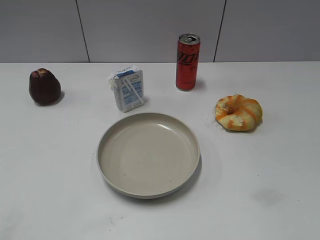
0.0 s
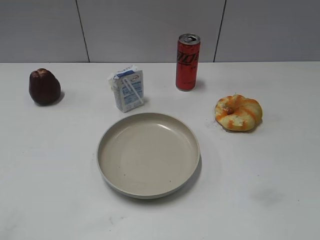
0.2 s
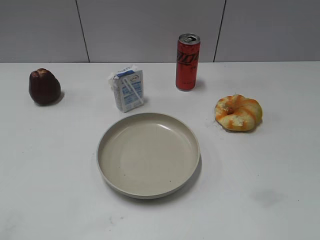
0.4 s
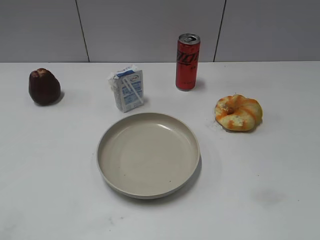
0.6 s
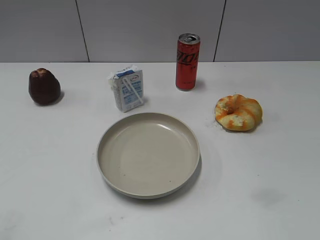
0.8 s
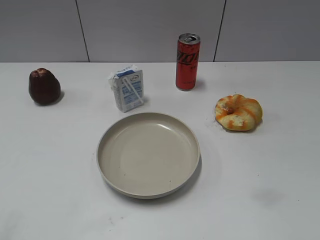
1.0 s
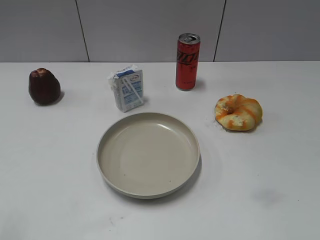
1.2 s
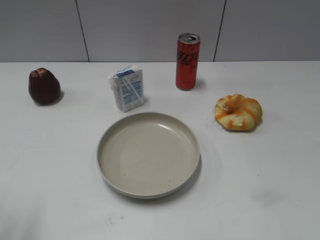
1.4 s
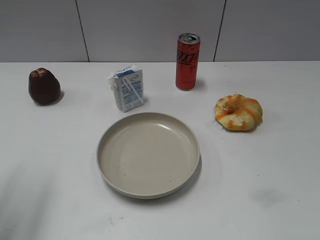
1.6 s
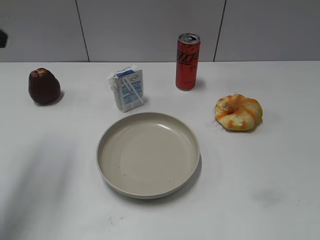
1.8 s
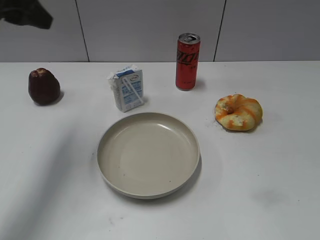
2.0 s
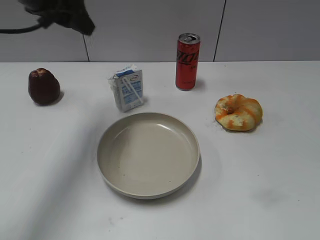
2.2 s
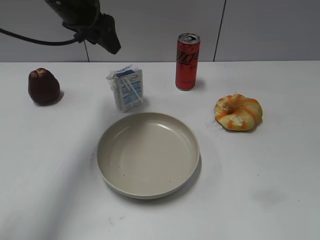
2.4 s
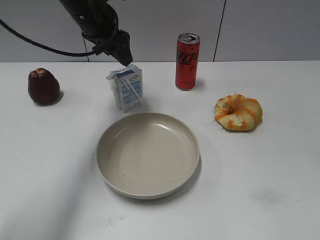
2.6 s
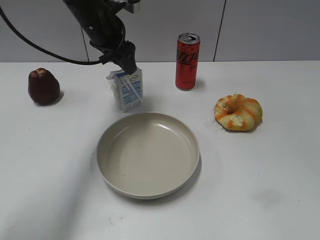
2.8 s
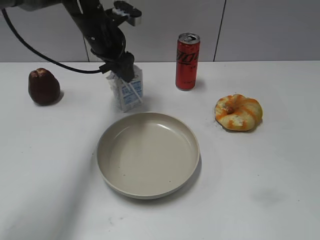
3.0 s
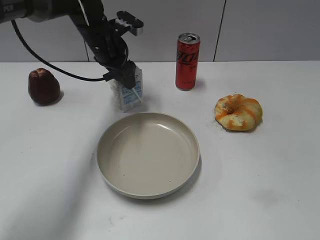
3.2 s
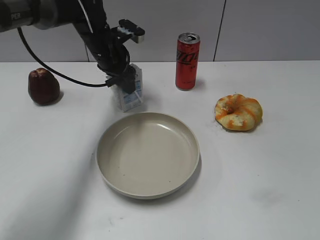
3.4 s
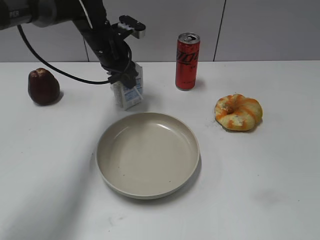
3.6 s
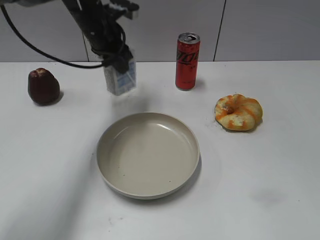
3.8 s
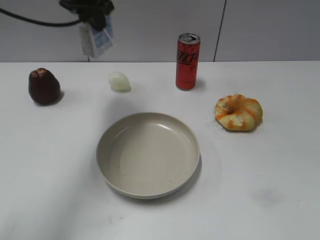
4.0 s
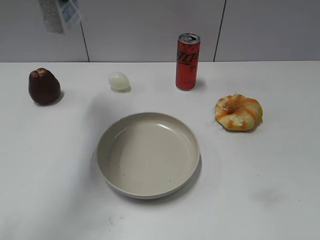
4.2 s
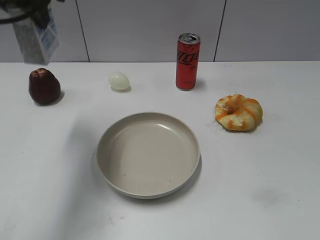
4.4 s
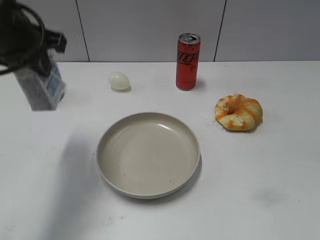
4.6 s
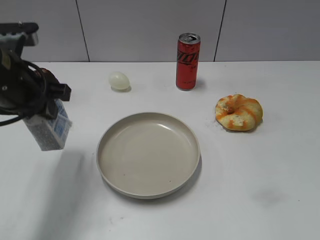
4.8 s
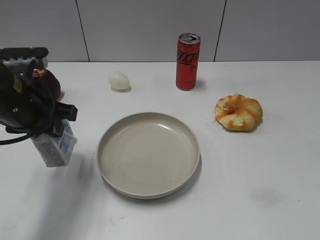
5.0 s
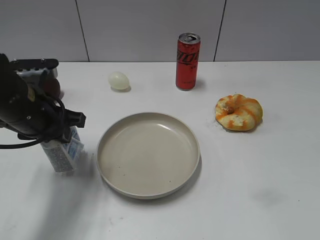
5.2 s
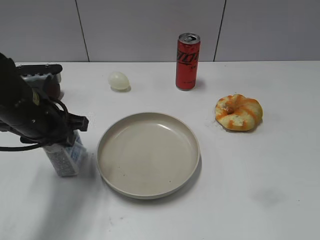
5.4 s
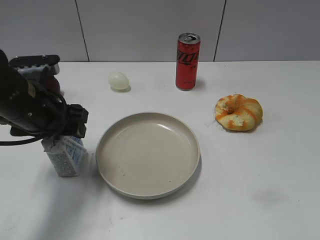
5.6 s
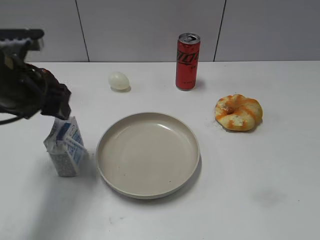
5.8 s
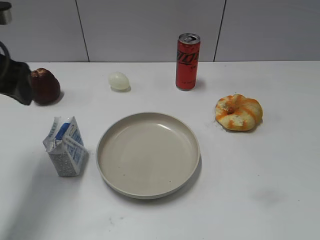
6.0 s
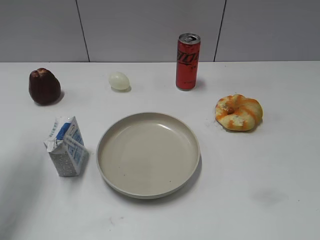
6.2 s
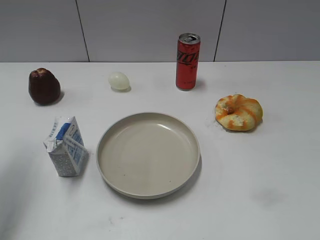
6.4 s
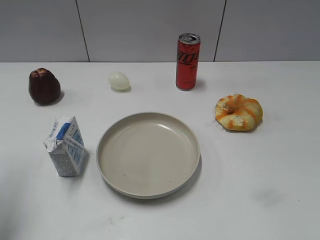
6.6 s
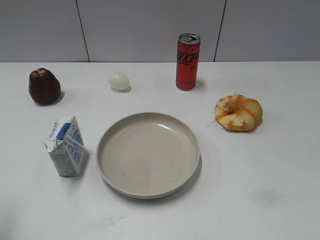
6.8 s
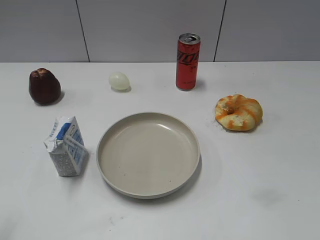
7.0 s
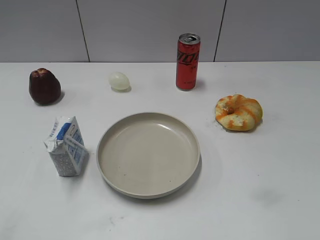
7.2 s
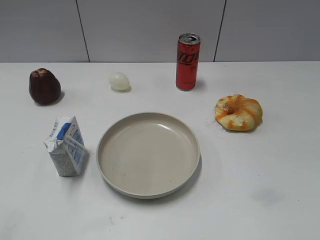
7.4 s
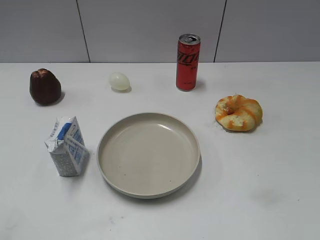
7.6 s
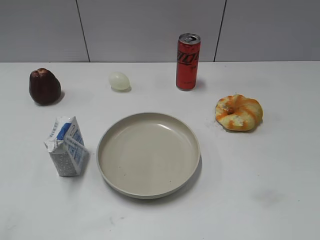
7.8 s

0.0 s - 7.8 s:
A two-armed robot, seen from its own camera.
Step, 0.8 s - 3.6 s: Grasp the milk with left gripper.
Step, 3.8 s - 5.6 s: Place the milk on the table with left gripper.
1.6 s - 3.2 s: The left gripper moves forward, to the right and downward, about 35 cm.
3.2 s - 4.6 s: The left gripper is displaced backward, upward and to the left by roughly 25 cm, and closes up.
4.6 s - 6.2 s: The left gripper goes approximately 10 cm to the left, travels downward and back again, roughly 10 cm each way, and opens.
6.2 s - 7.8 s: The left gripper is displaced backward by approximately 30 cm.

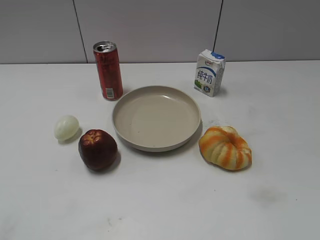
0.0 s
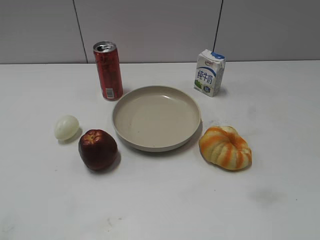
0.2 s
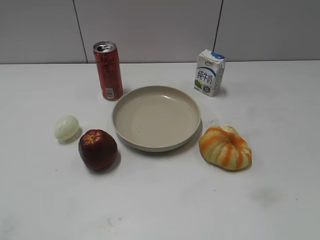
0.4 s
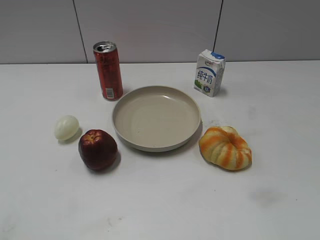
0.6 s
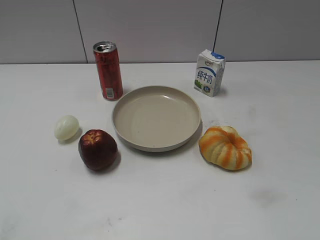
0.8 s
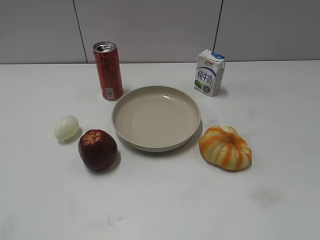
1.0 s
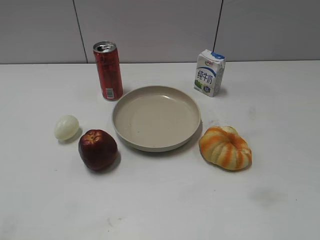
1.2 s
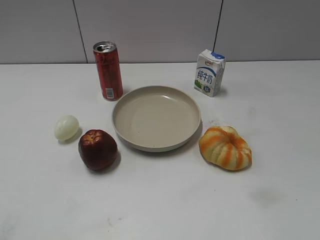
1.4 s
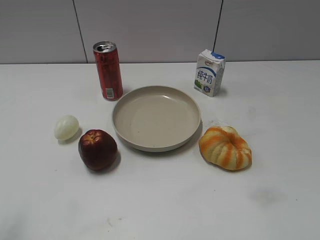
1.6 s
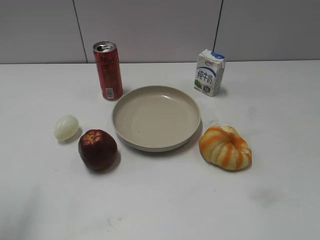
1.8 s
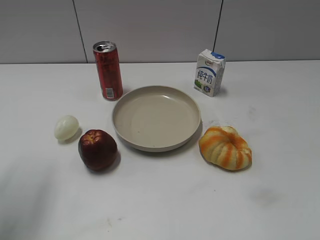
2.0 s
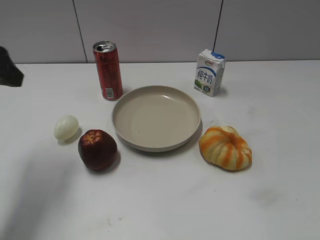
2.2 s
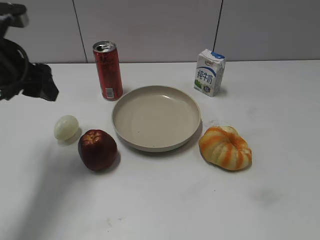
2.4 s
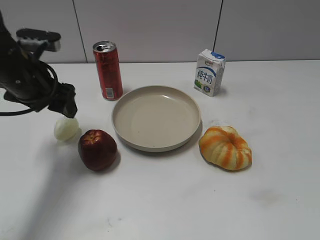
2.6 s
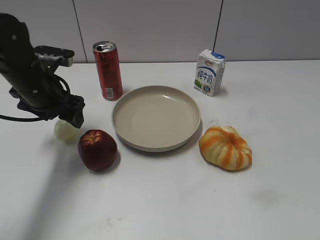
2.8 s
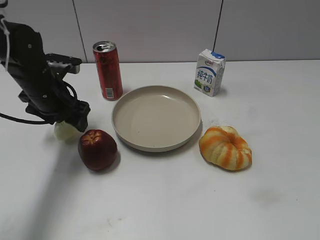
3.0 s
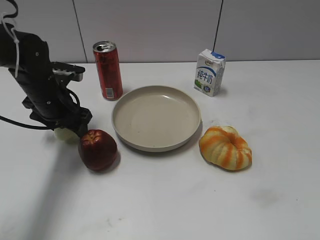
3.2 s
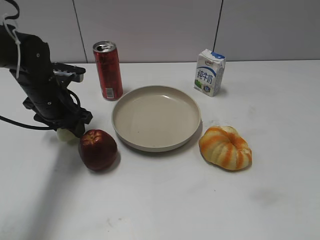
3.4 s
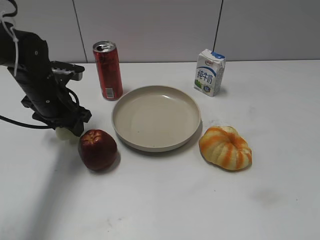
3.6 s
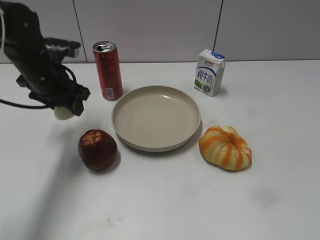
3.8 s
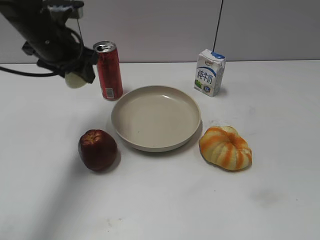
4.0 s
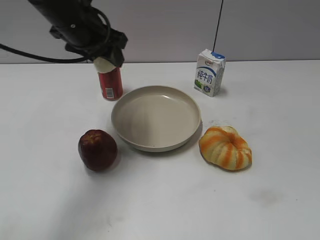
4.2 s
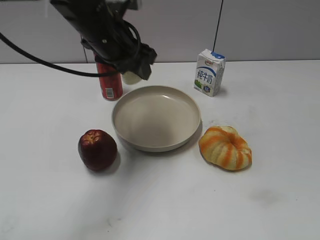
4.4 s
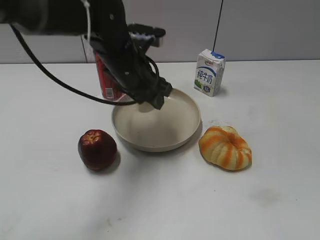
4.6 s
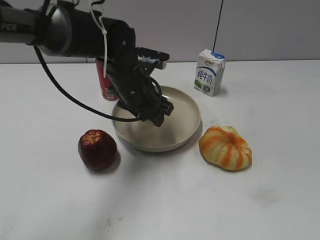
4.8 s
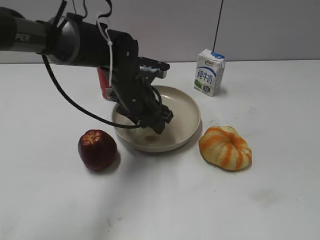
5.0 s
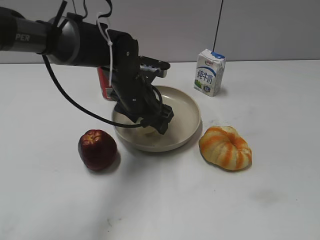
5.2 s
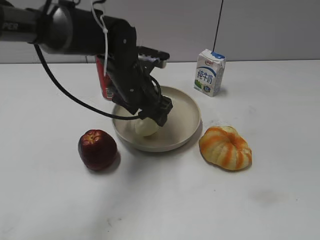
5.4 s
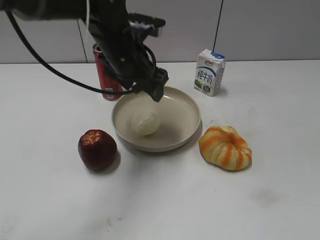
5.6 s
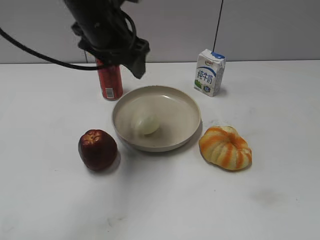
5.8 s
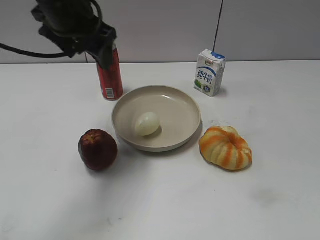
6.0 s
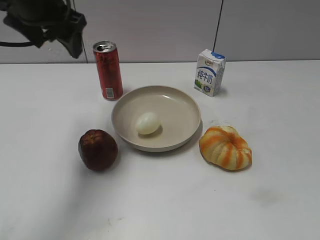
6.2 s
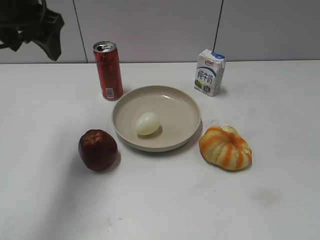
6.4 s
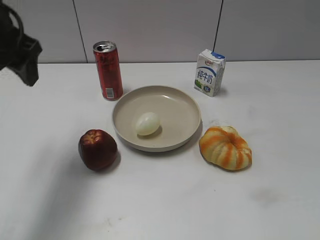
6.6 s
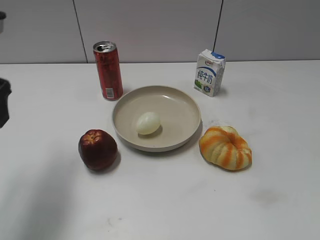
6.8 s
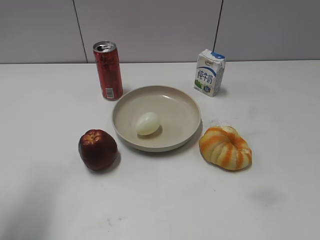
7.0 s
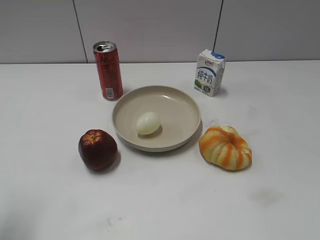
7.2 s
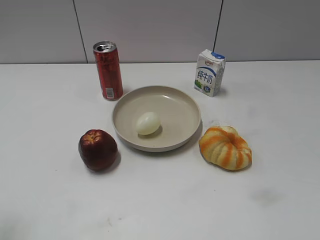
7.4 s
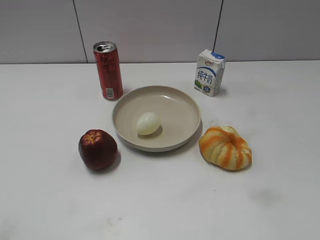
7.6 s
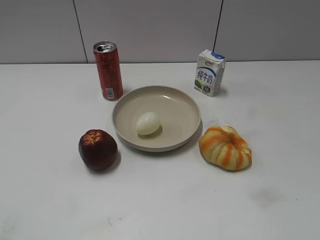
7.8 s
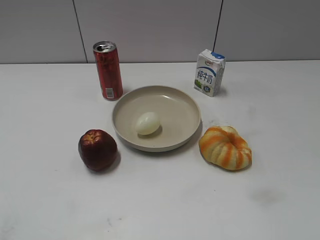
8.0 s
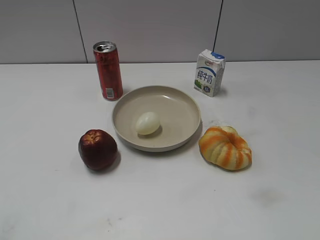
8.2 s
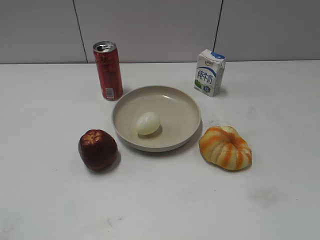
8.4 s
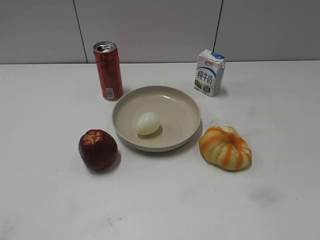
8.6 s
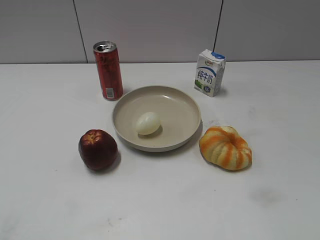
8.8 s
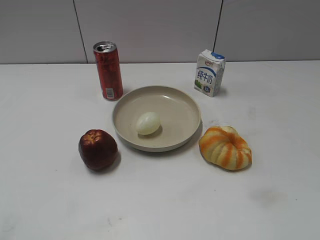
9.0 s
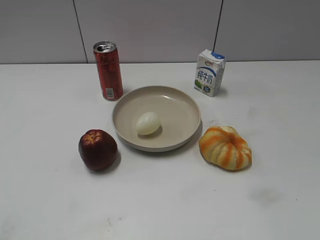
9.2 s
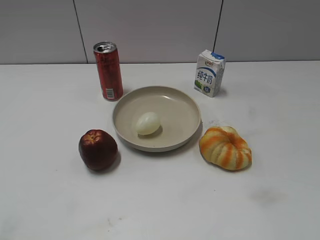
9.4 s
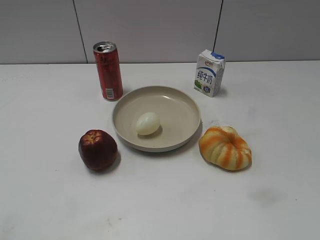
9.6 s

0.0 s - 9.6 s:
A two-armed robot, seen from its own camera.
Step, 1.0 s - 3.6 s: Grasp the egg with left gripper.
Step, 3.8 s - 5.4 s: Place the egg on the plate with left gripper.
1.6 s - 3.2 s: The left gripper travels forward, downward and to the right by some 35 cm.
3.2 s - 4.8 s: The left gripper shifts roughly 15 cm to the right, and closes up.
4.8 s - 6.4 s: The left gripper travels upward and to the left by about 20 cm, and opens up.
6.4 s - 8.0 s: The left gripper heads backward and to the left, covering approximately 30 cm.
